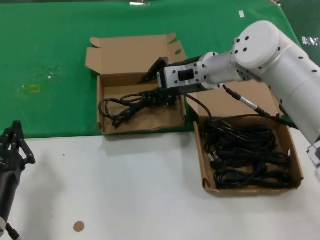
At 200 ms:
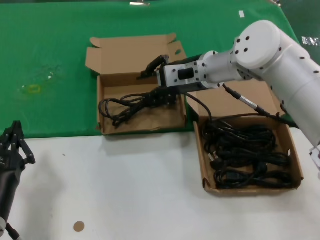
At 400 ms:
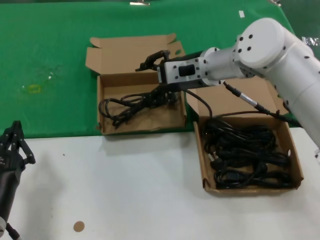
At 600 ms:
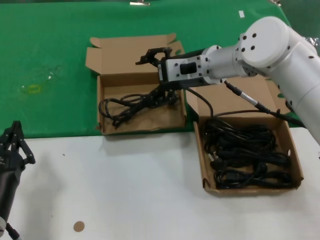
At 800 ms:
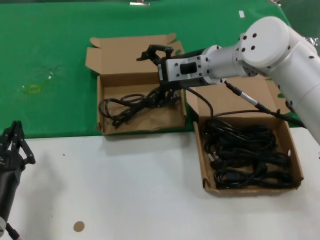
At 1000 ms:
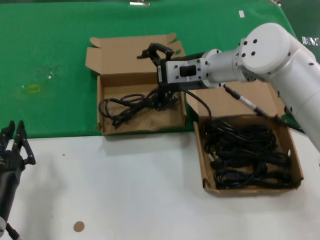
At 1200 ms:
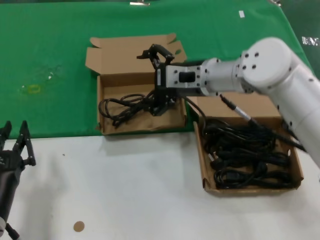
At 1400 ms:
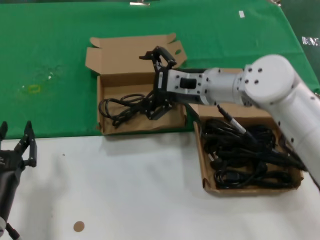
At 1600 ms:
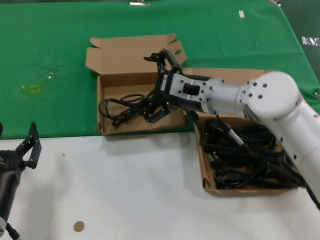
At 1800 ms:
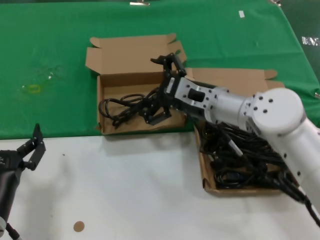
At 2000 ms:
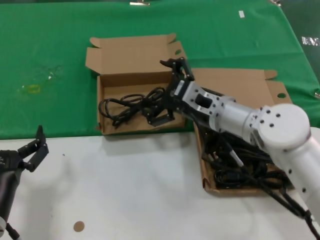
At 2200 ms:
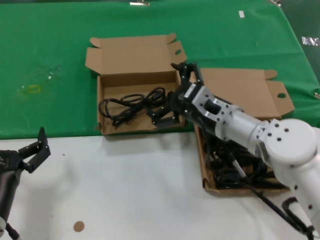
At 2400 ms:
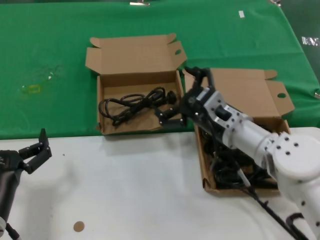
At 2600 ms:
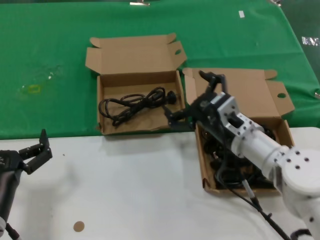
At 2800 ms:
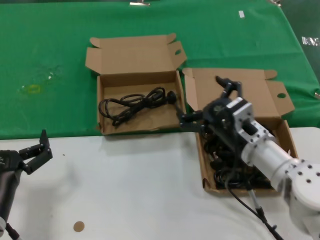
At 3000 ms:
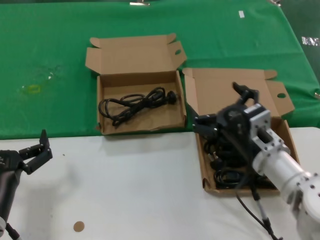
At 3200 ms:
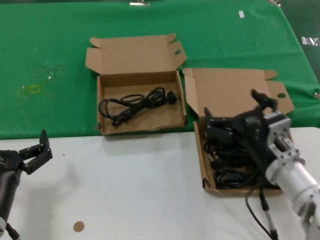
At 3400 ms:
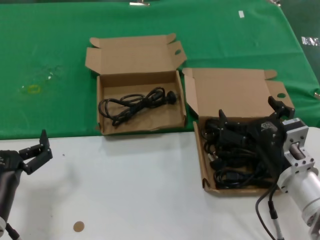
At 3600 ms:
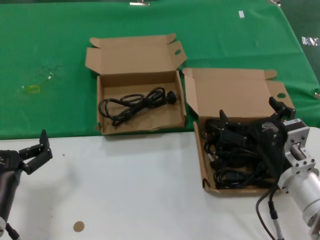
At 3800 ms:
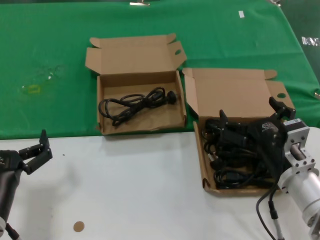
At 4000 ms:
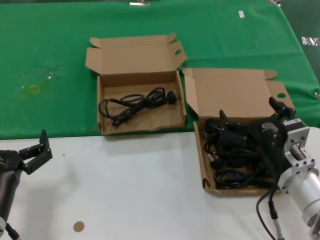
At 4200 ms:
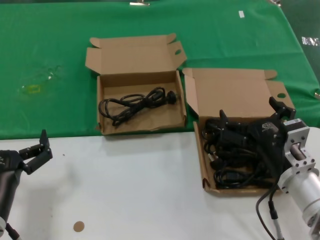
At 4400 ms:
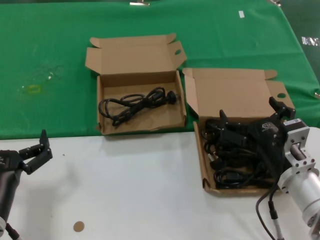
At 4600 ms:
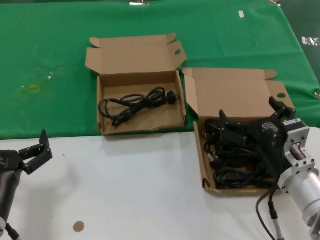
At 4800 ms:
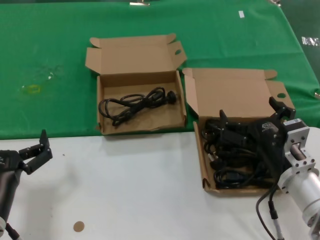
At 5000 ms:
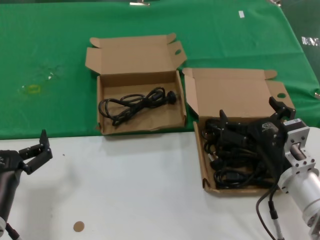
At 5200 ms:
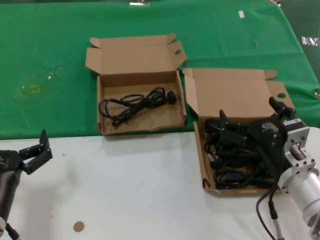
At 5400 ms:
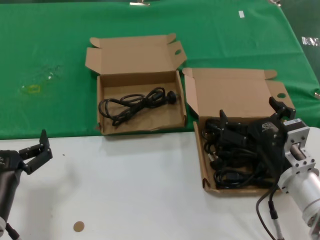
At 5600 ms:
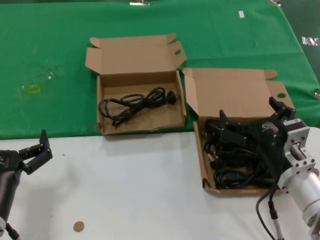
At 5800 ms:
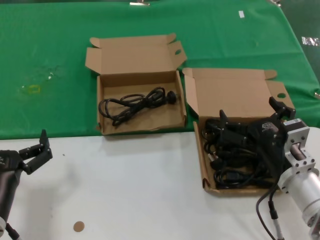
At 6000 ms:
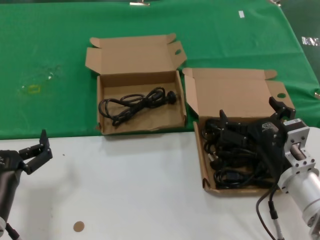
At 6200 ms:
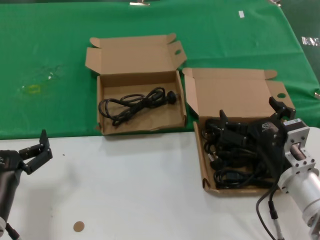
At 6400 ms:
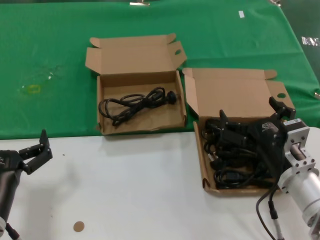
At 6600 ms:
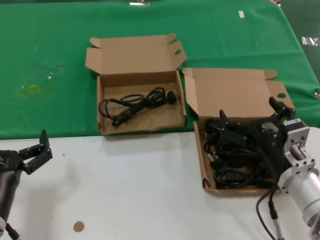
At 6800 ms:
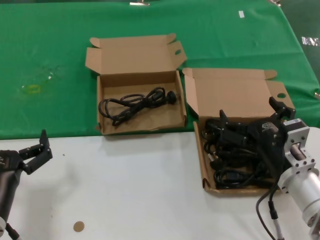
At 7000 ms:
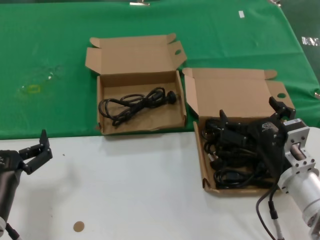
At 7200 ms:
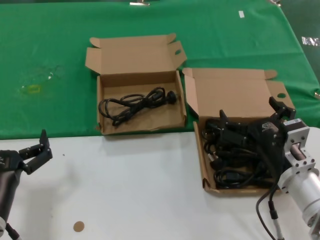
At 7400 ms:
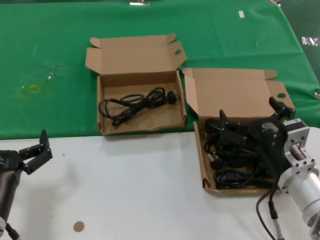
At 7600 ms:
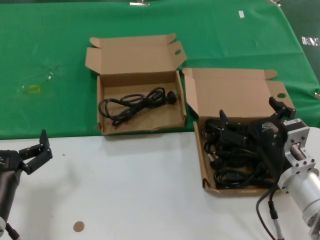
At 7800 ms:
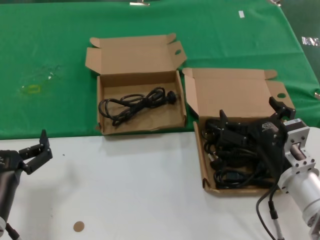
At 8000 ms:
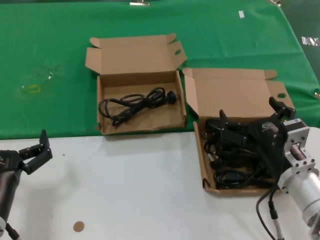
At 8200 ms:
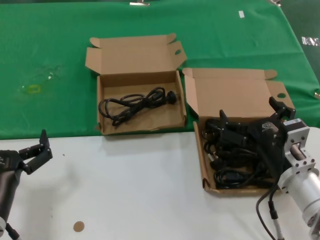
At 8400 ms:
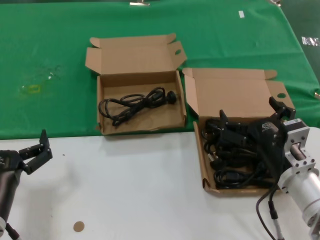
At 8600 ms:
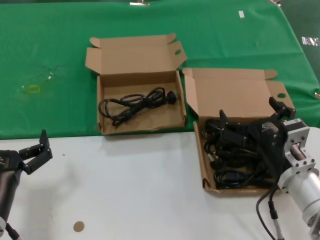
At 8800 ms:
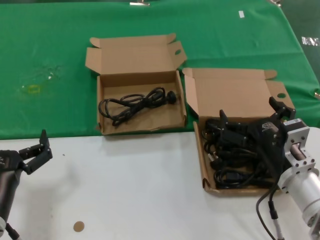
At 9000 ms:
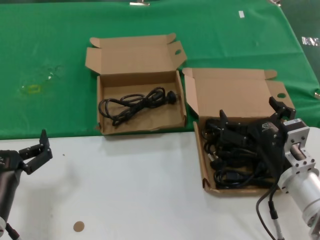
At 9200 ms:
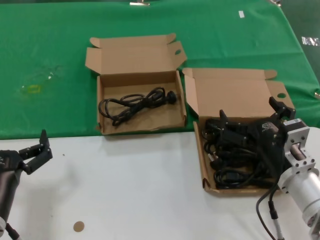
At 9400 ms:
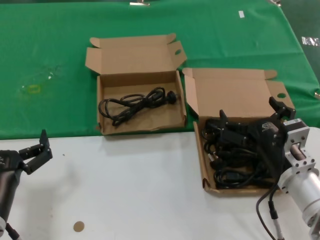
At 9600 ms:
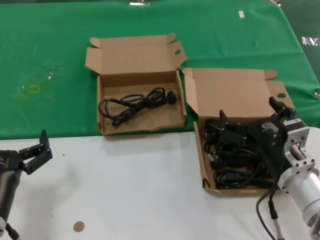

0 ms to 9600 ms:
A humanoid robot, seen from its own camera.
Task of the whole recording: take the parts from the box containing them and put them into an empty box.
0 ms to 1600 ms: The right hand ends up approximately 5 cm from where it was.
1600 ms to 3200 ms: The right hand is displaced backward, downward and to the right by some 20 cm.
3200 ms to 4800 ms: The hands move only a little.
4800 ms to 9600 ms: Both hands stay put.

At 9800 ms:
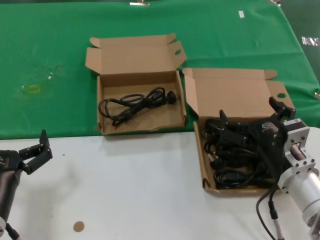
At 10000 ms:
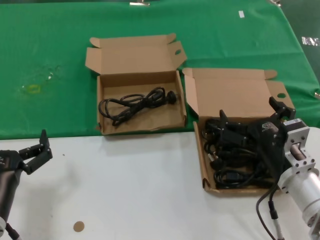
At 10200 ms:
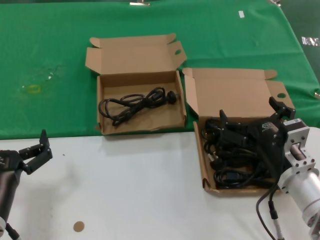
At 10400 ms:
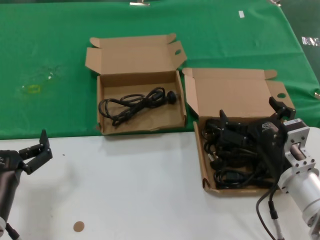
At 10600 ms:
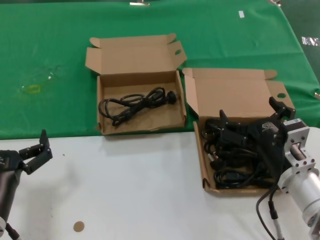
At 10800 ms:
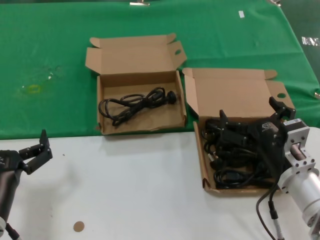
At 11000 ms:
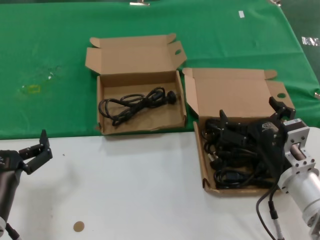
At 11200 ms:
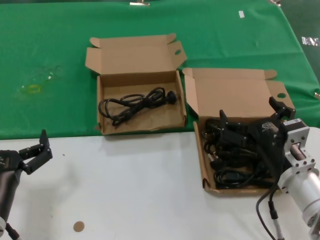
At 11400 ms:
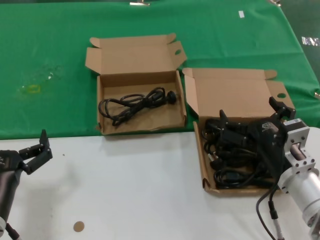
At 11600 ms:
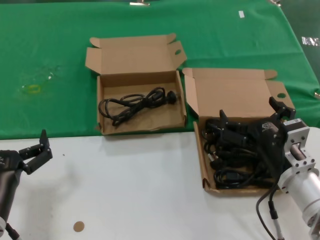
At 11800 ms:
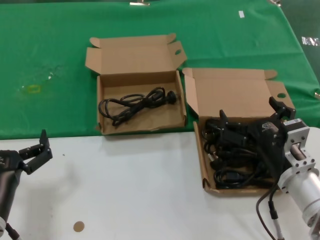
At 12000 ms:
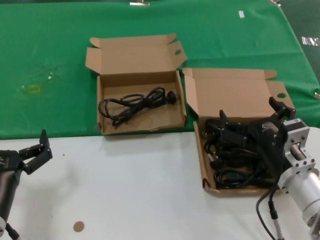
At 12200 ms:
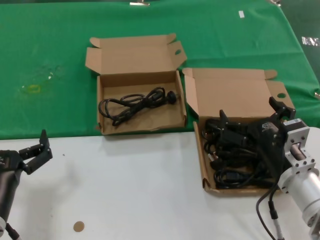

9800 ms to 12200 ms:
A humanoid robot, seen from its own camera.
Task of the whole recording: take the parts from the box containing them and put them into an empty box.
9800 ms to 12200 ms: Neither hand changes place.
